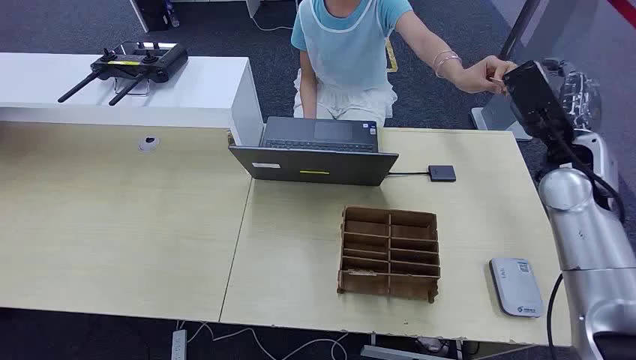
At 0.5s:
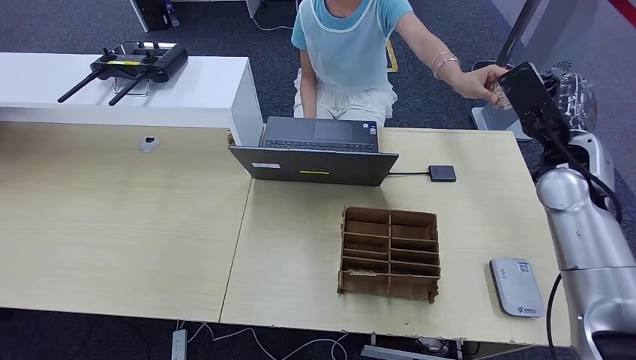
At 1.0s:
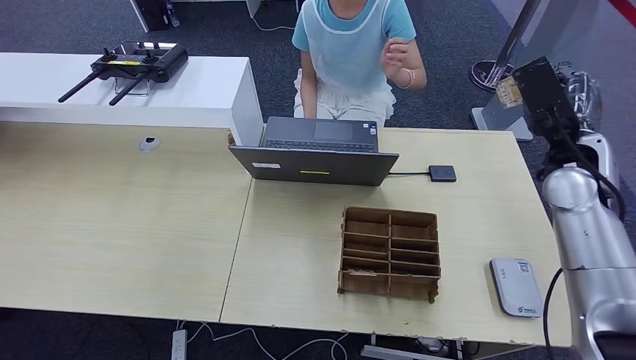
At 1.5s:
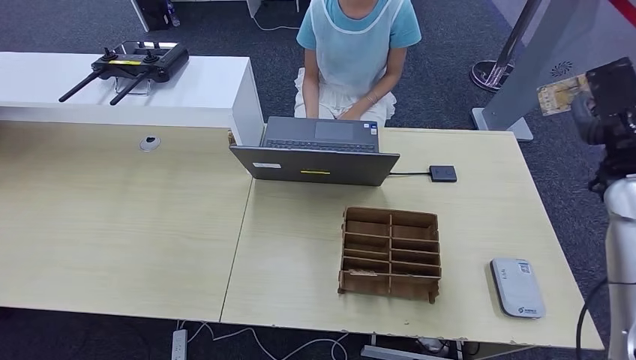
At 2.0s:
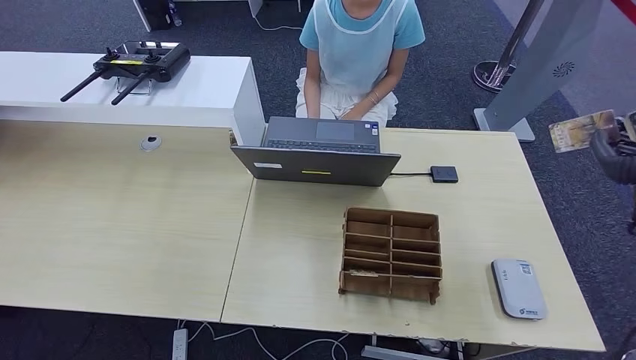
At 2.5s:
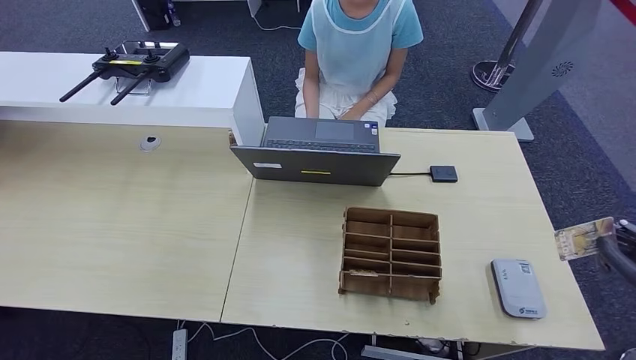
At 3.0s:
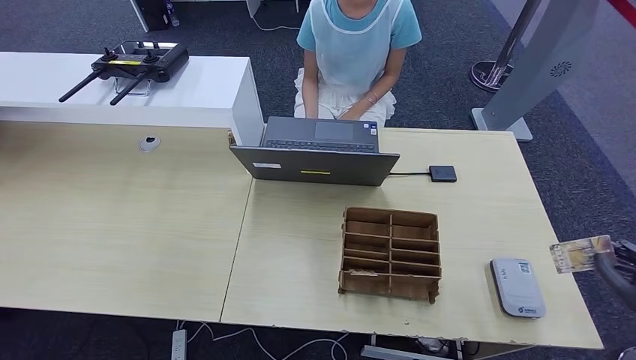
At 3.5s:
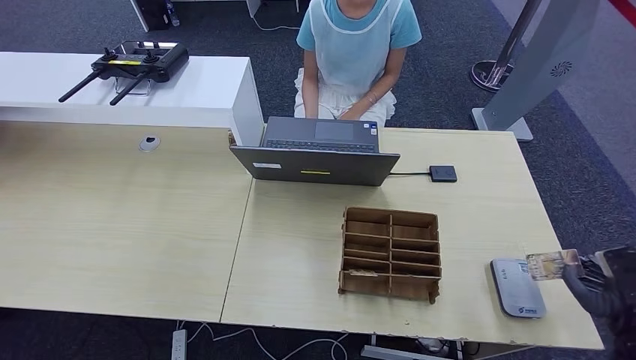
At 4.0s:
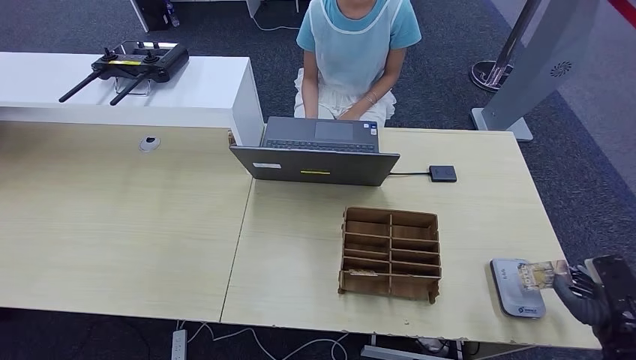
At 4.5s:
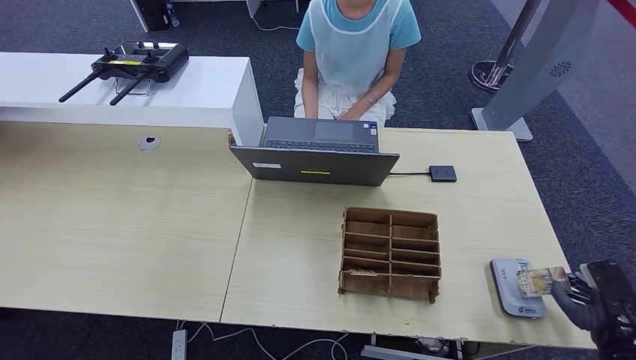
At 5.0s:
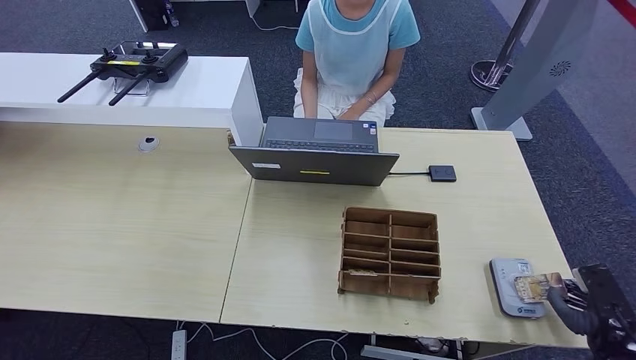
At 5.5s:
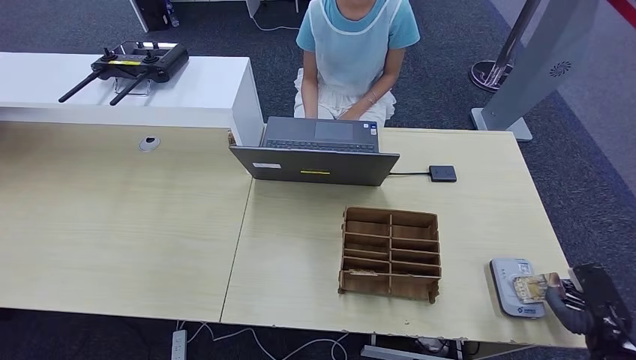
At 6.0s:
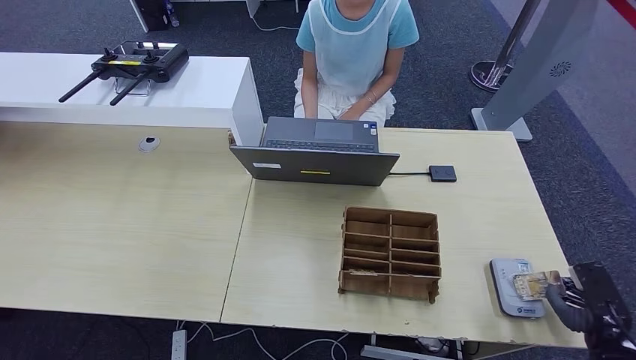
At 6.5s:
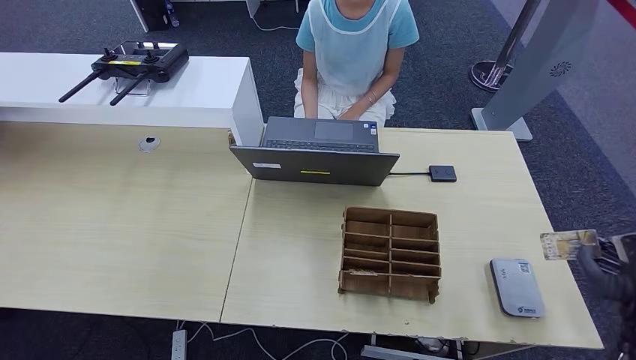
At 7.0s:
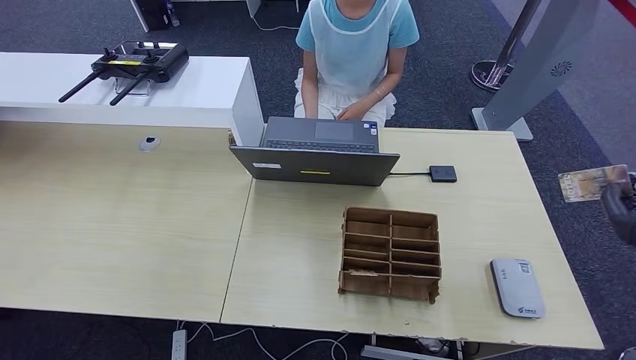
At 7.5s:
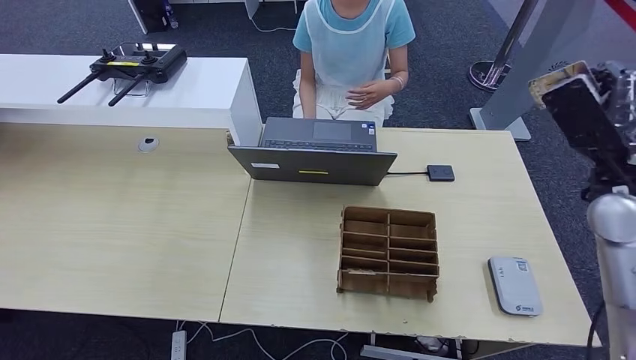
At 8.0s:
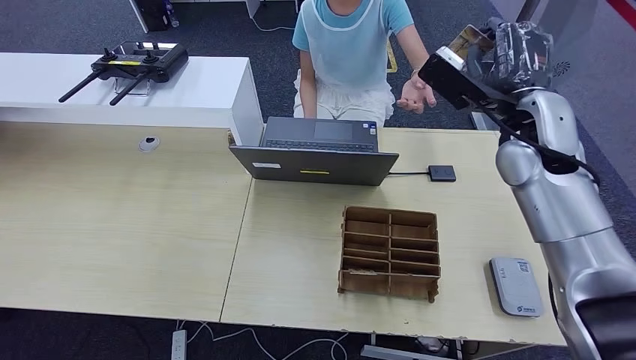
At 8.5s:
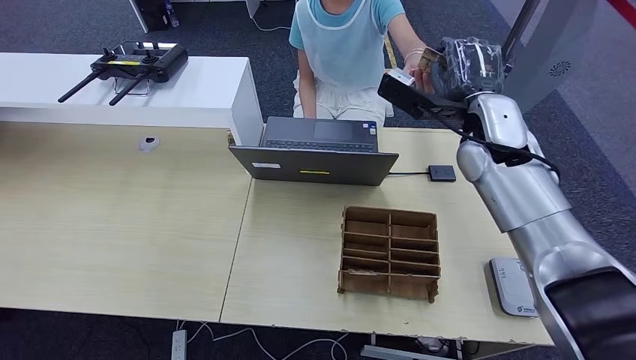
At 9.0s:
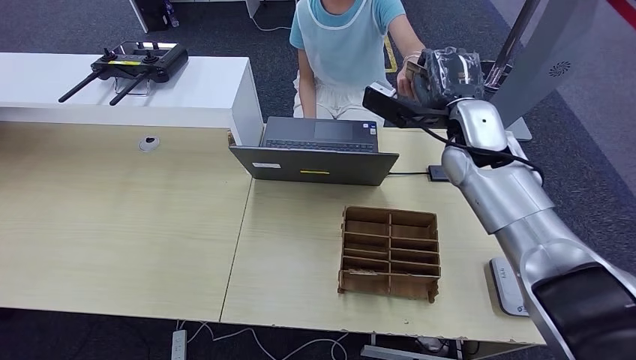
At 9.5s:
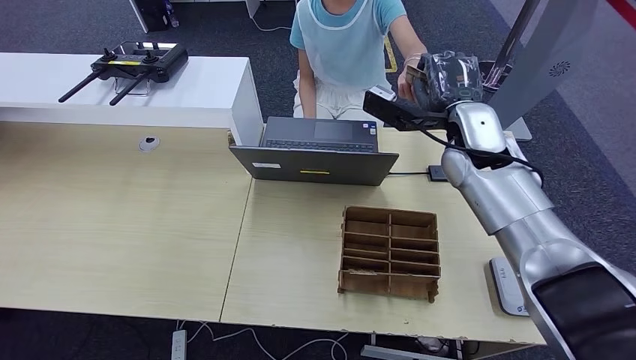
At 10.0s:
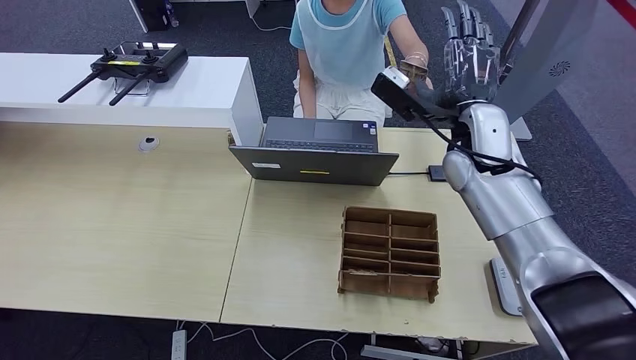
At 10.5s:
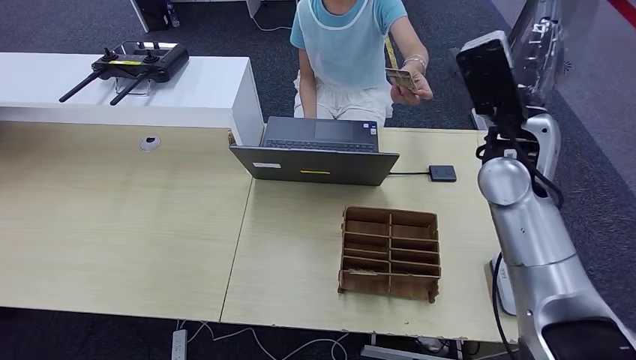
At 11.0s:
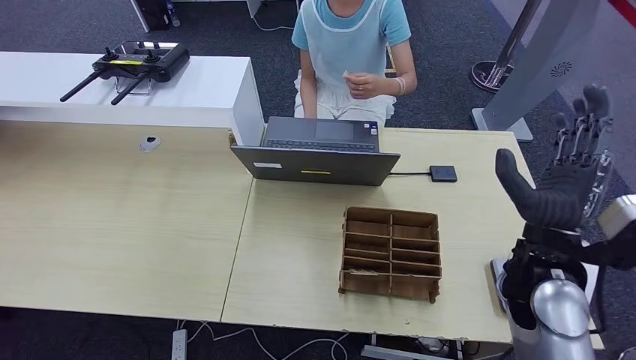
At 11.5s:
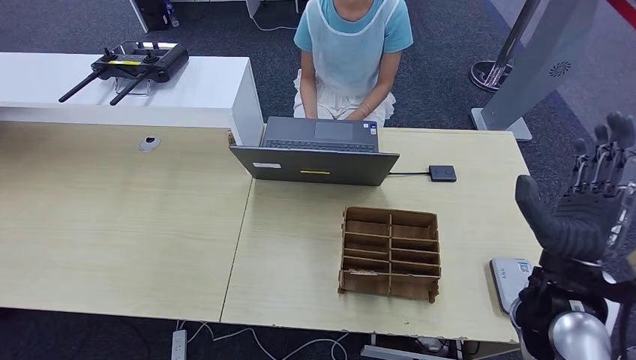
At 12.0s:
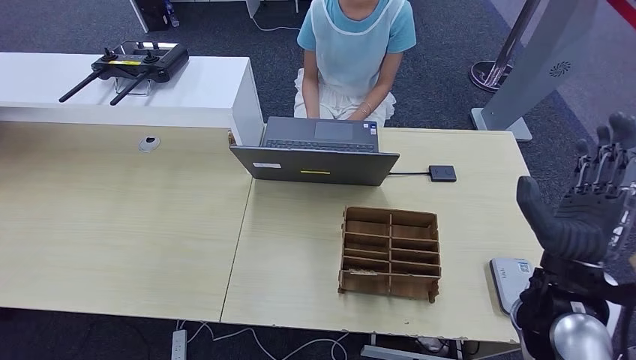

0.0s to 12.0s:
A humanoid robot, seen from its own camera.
Step, 0.0s to 2.5s: Take the ID card from the person's hand.
Step, 3.0s to 7.0s: Place the ID card on the card reader.
Step, 7.5s to 11.0s: Hand the ID card to the person.
2.0s to 4.0s: The right hand is displaced downward and backward by about 25 cm.
4.0s to 6.0s: The hands stay close to where they were, moving slightly.
6.0s to 8.0s: The right hand goes approximately 40 cm upward, forward and to the left.
8.0s to 10.0s: The right hand travels to the left by some 5 cm.
10.0s to 12.0s: The right hand heads backward, covering approximately 20 cm.

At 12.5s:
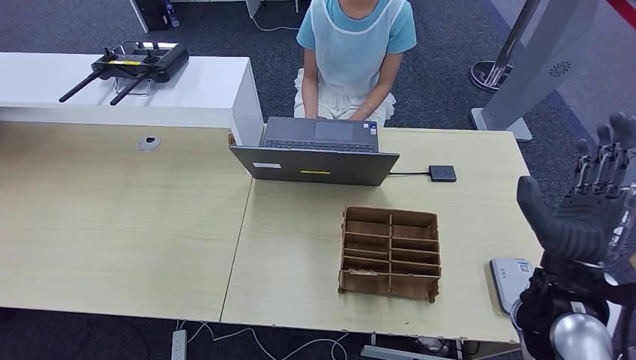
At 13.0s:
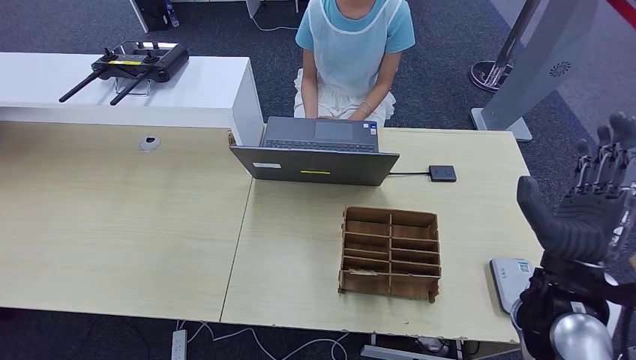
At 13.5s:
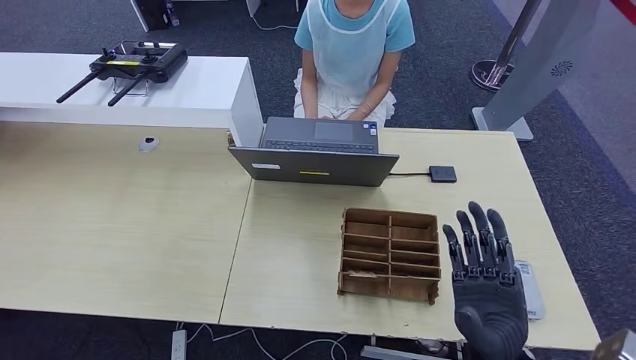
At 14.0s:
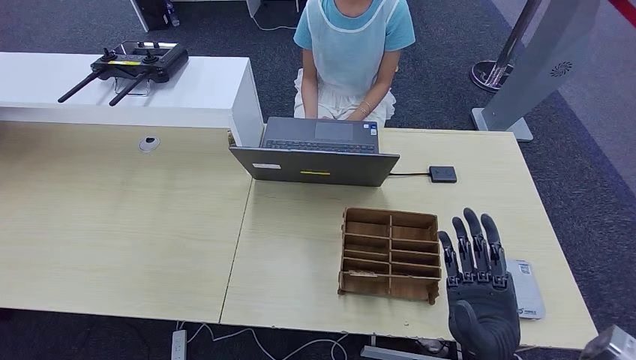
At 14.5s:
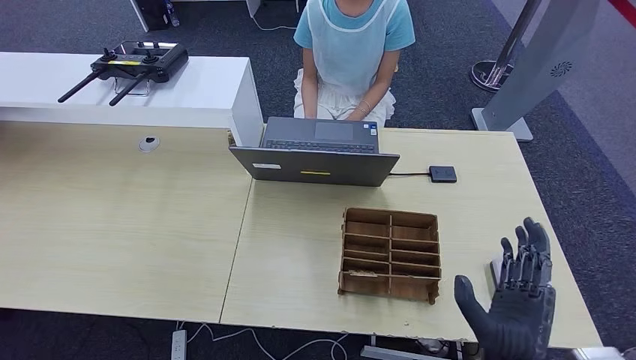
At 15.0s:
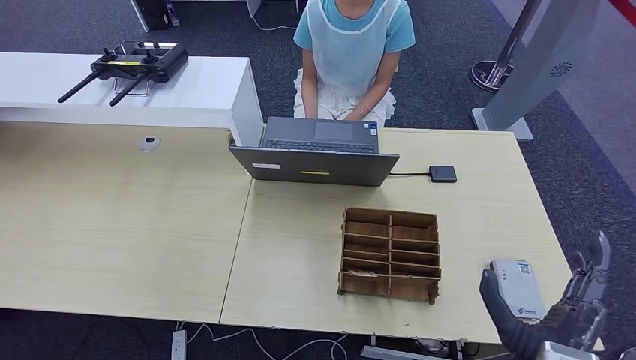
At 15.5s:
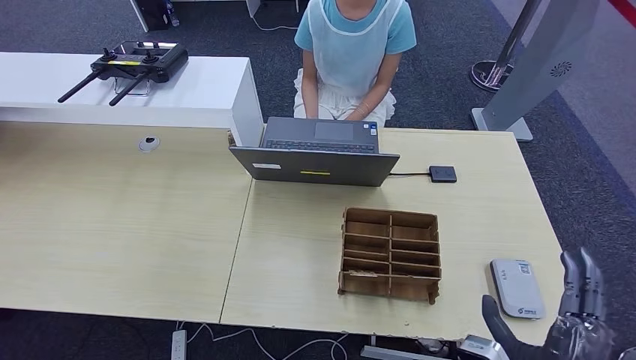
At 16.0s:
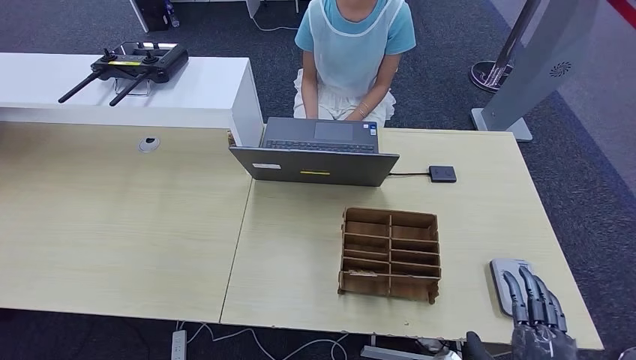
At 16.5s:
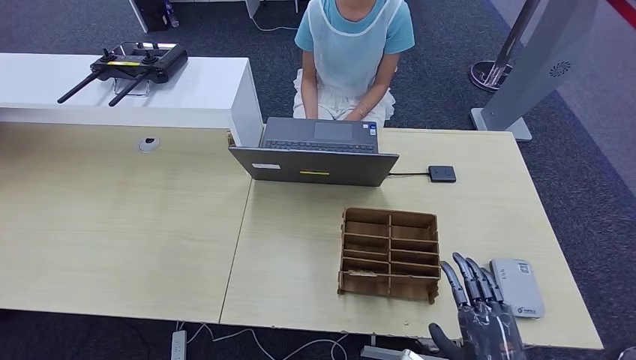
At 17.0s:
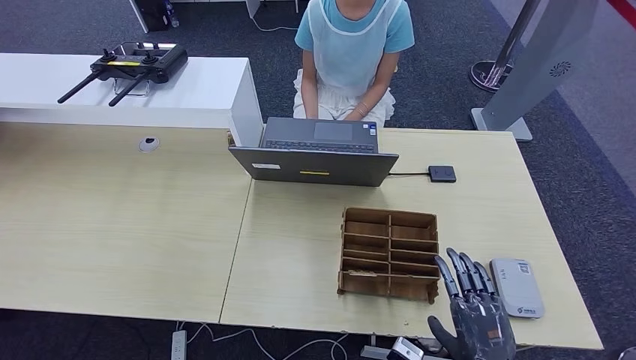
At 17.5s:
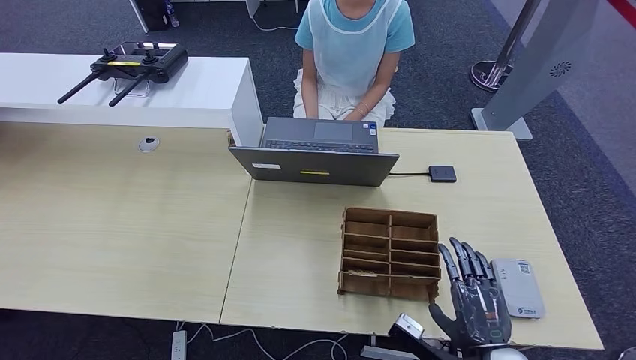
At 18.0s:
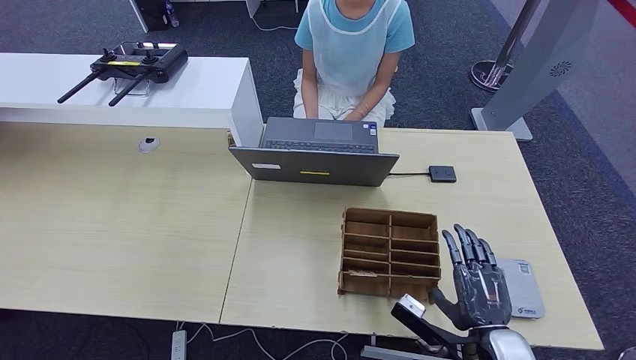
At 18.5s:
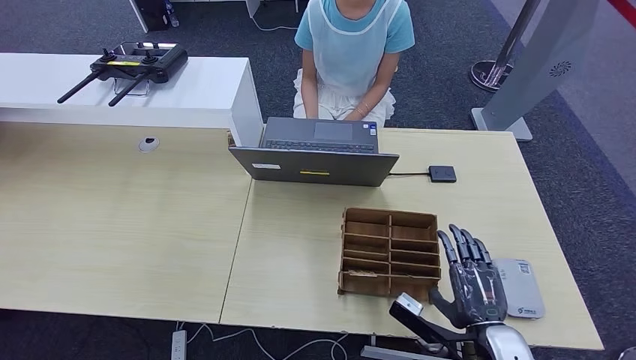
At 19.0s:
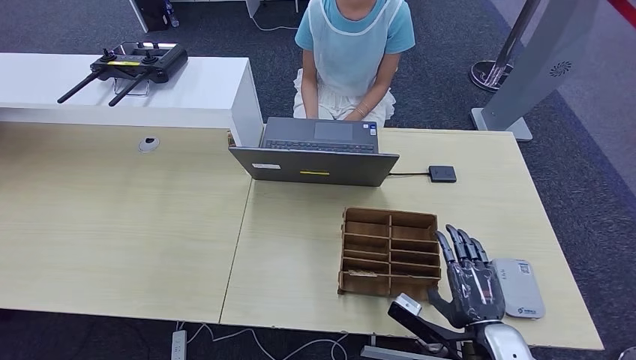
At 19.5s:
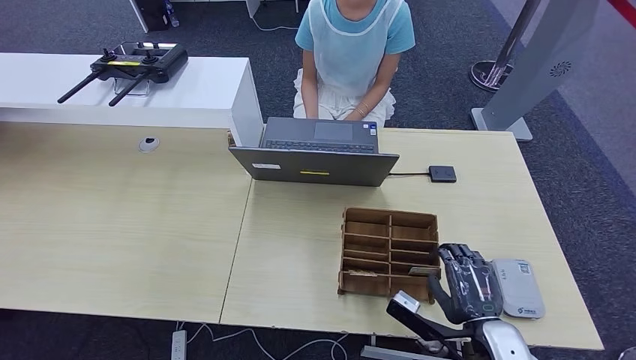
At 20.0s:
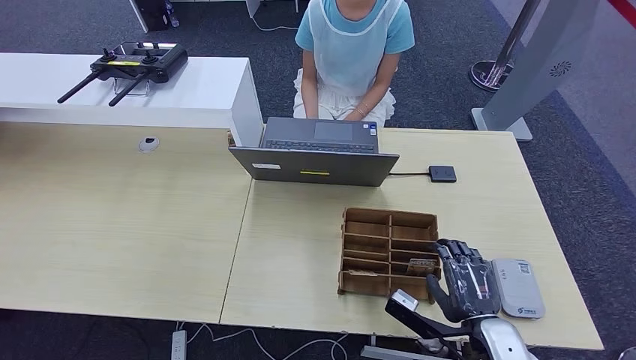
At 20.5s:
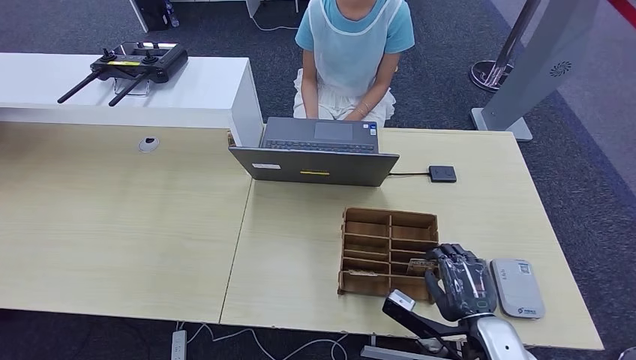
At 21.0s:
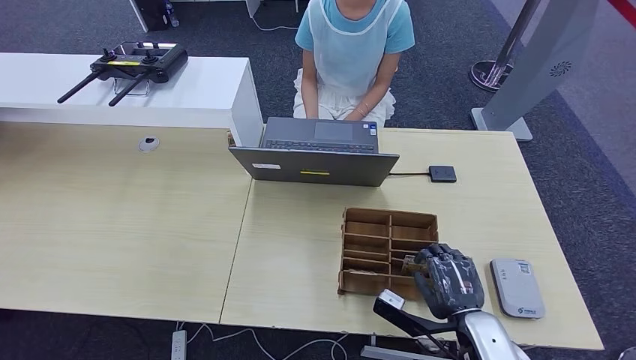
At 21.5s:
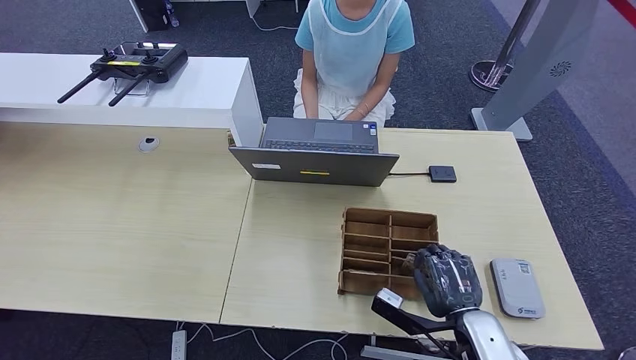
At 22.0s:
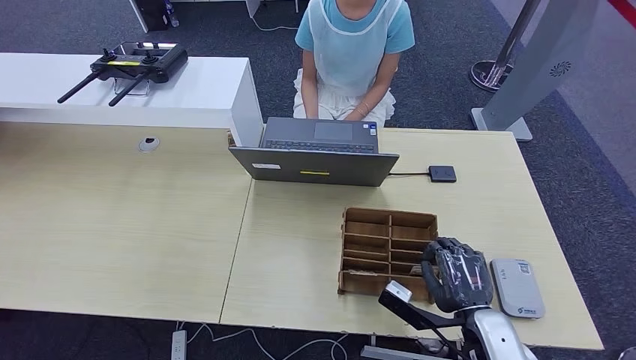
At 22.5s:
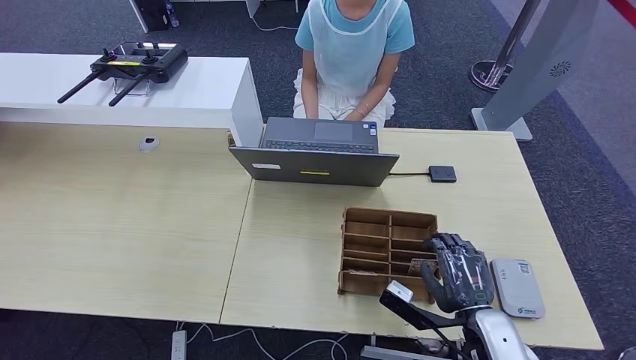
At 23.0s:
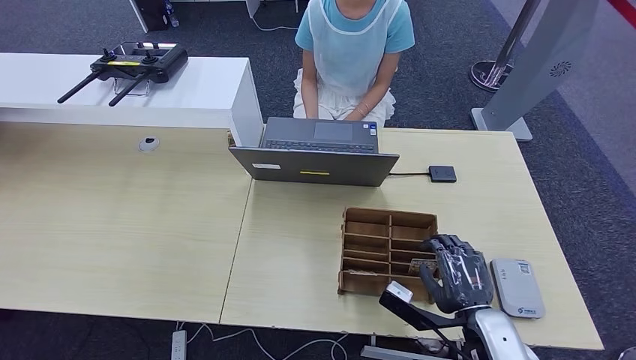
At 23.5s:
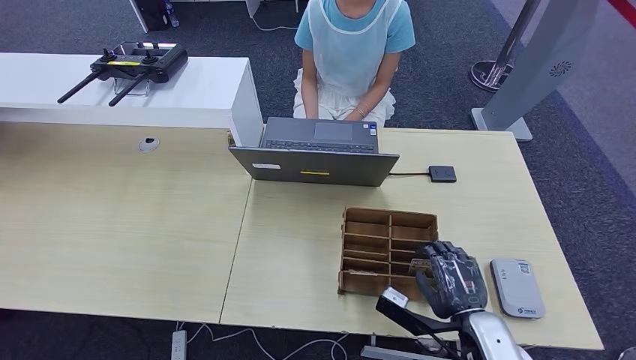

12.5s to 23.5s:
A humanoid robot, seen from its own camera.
12.5s to 14.5s: The right hand moves backward, downward and to the left, some 15 cm.
14.5s to 16.0s: The right hand travels backward and to the right by some 10 cm.
16.0s to 18.0s: The right hand shifts some 10 cm forward.
18.0s to 23.5s: There are only small adjustments of the hands.
